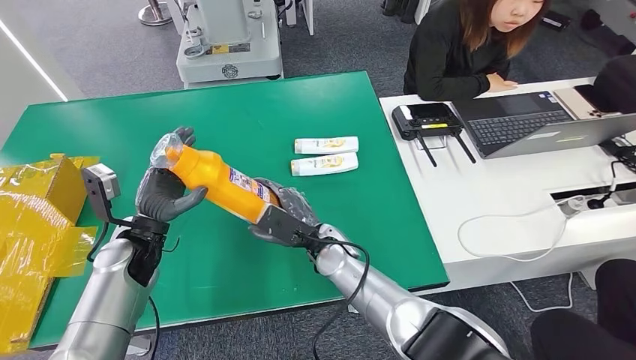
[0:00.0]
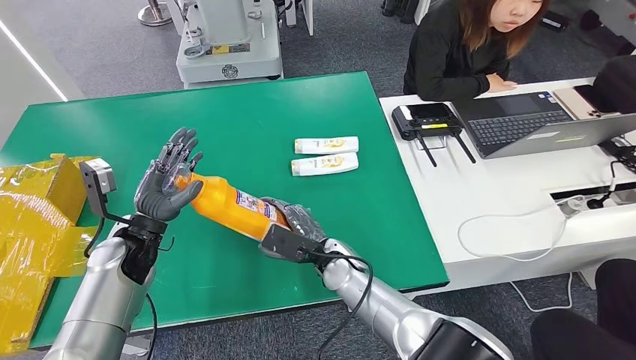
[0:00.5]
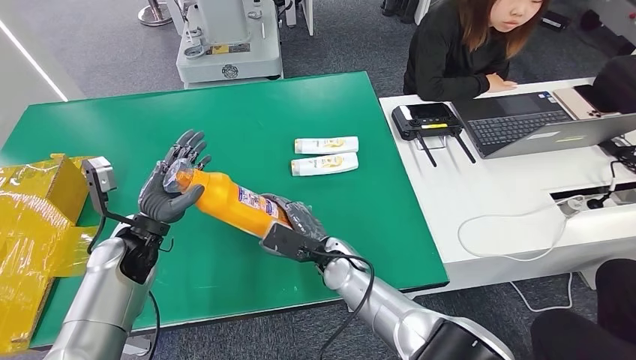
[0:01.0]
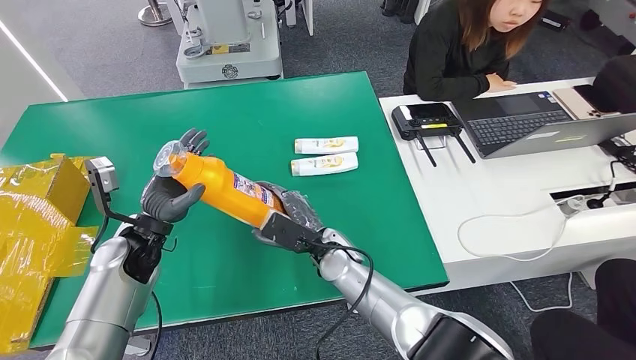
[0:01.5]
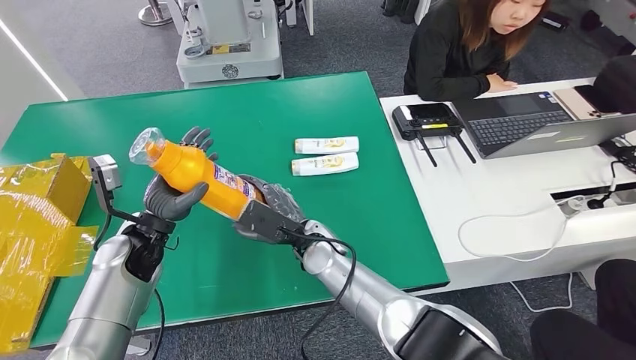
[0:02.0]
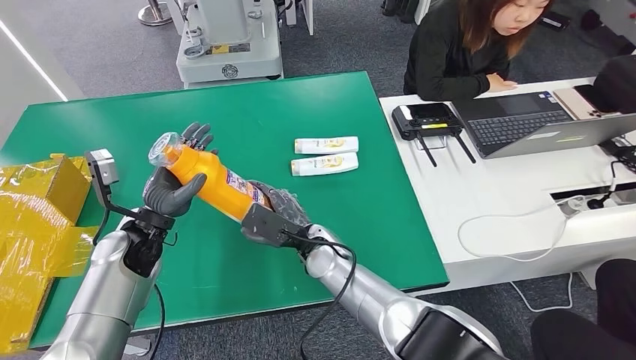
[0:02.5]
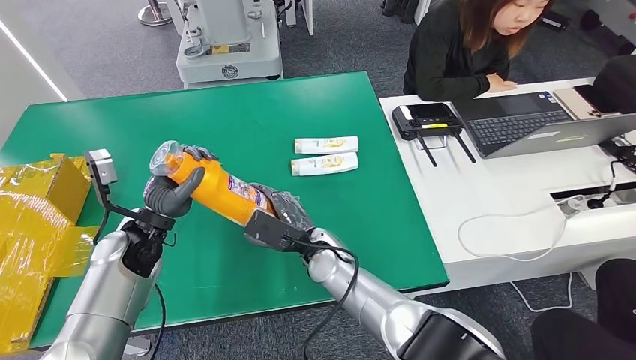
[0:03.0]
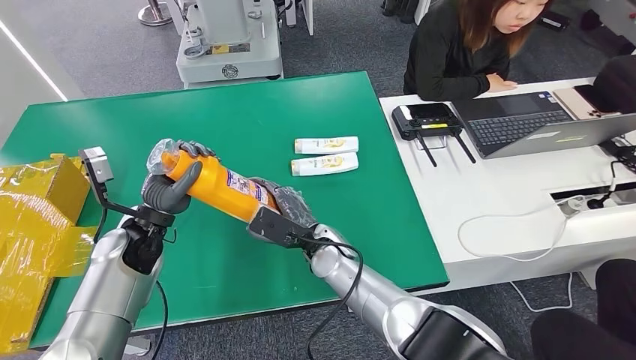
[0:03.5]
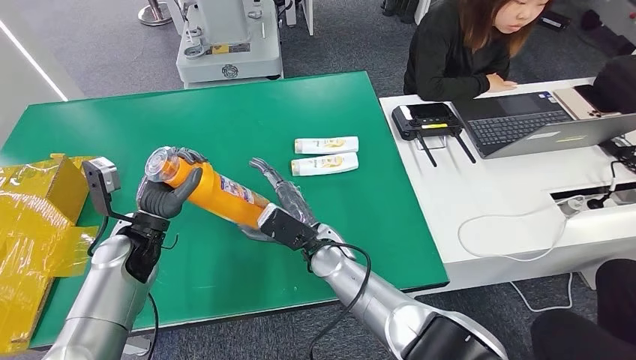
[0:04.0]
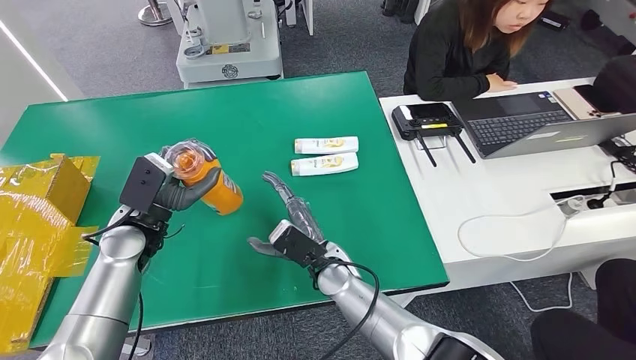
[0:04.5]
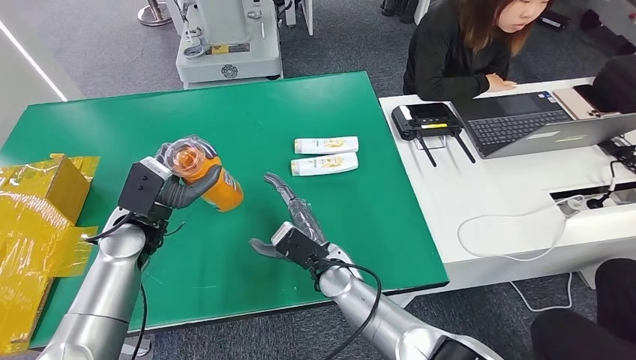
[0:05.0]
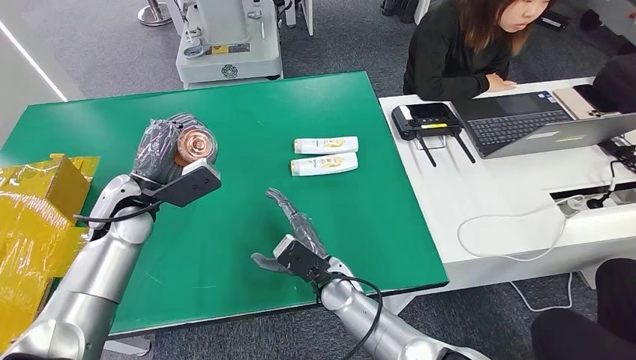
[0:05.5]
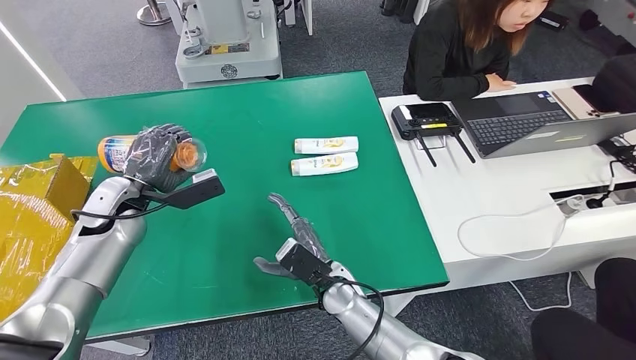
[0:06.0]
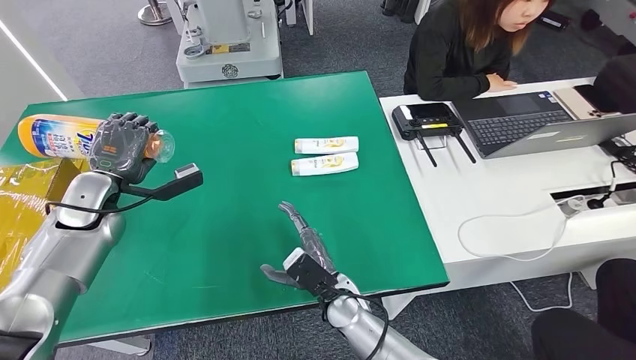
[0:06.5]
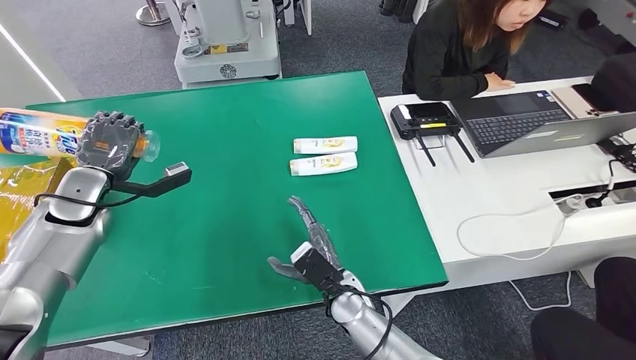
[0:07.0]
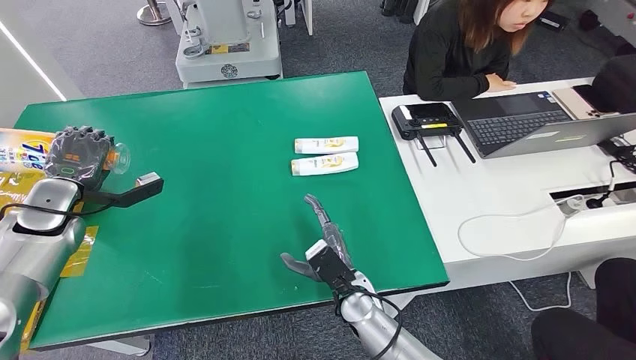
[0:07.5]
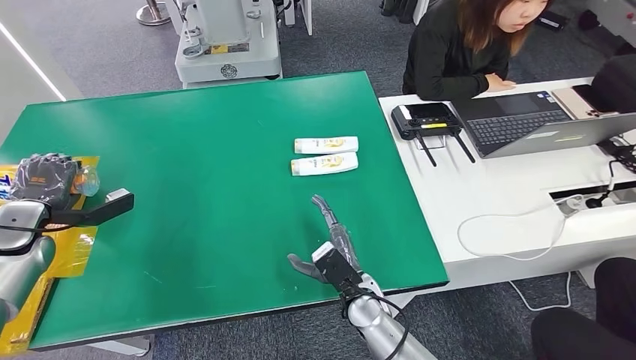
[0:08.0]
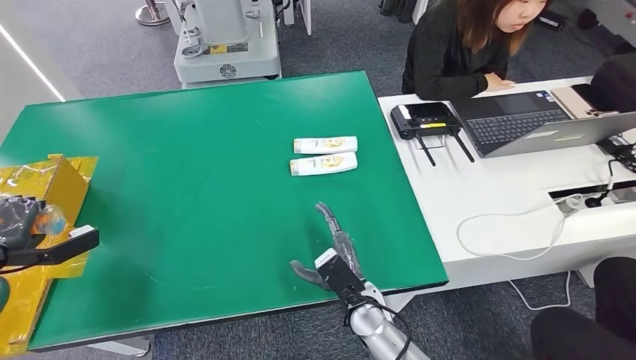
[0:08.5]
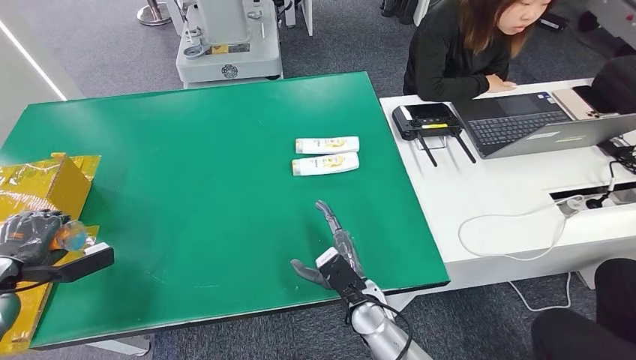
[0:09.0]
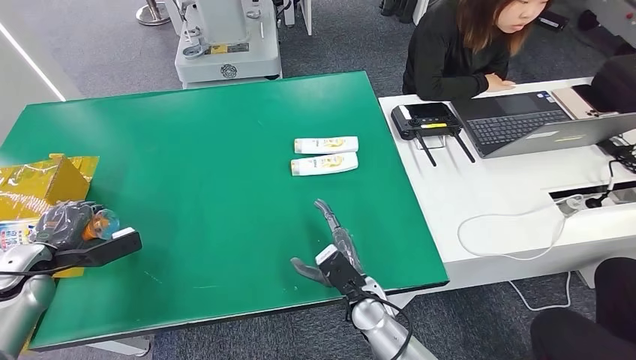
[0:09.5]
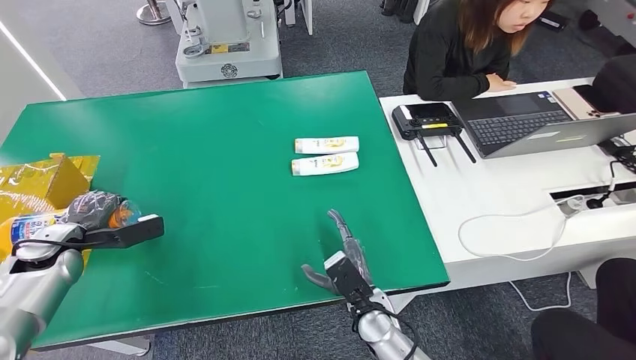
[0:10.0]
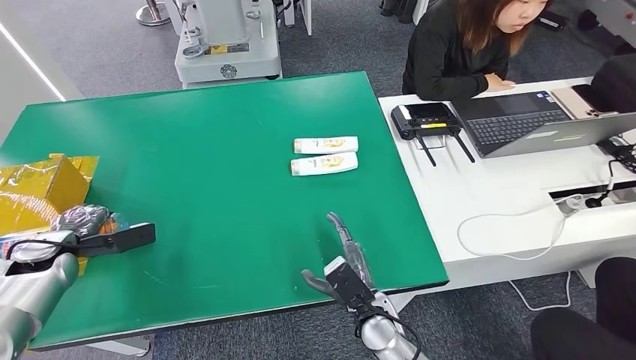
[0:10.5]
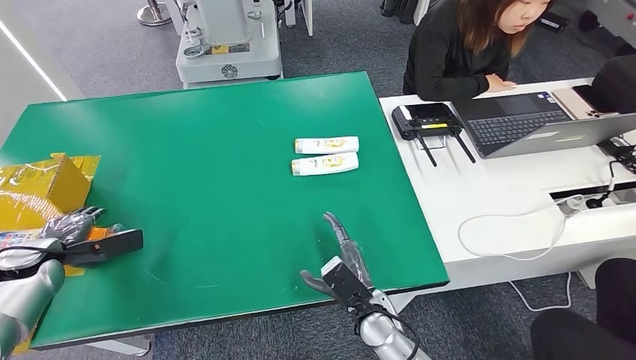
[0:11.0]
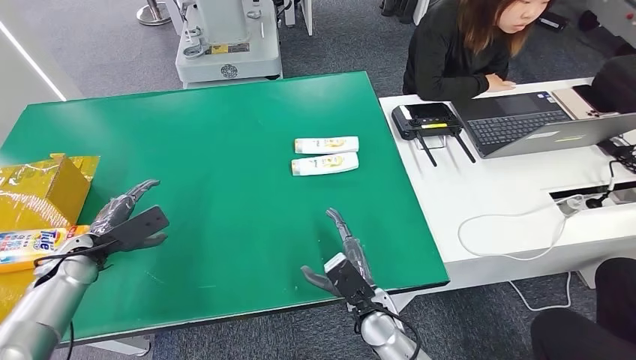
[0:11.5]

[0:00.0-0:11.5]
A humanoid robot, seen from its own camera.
Step, 0:00.0 to 0:11.5: Turn the bottle to the front side.
0:00.0 to 0:04.0: The hands make only small movements.
0:04.0 to 0:06.0: The right hand is displaced backward and downward by approximately 10 cm. Meanwhile the left hand shifts by some 5 cm.
0:06.0 to 0:07.5: The left hand travels to the left by some 10 cm.
0:07.5 to 0:09.5: The left hand travels downward, backward and to the left by roughly 10 cm.
0:09.5 to 0:11.5: The left hand shifts roughly 5 cm to the right.
